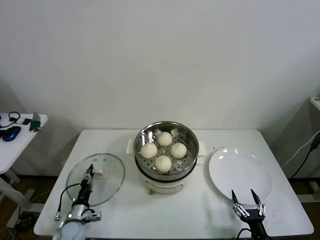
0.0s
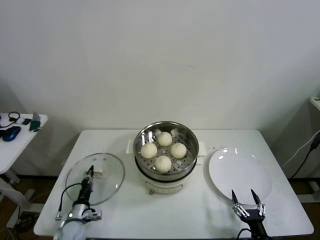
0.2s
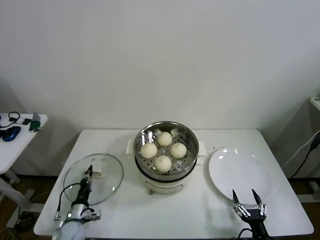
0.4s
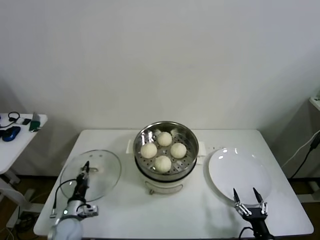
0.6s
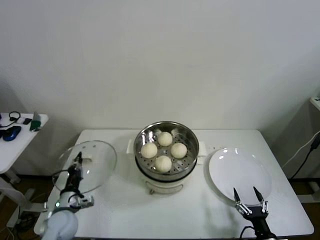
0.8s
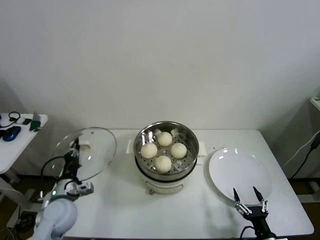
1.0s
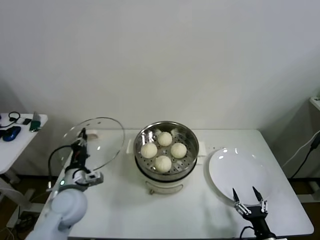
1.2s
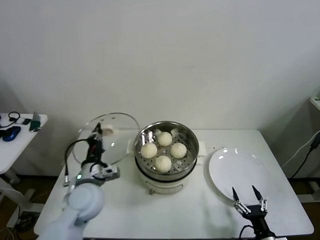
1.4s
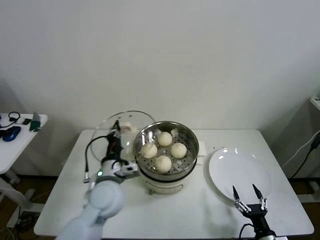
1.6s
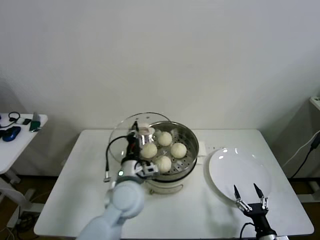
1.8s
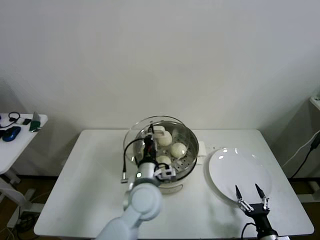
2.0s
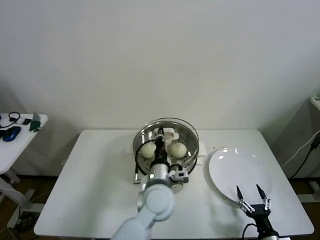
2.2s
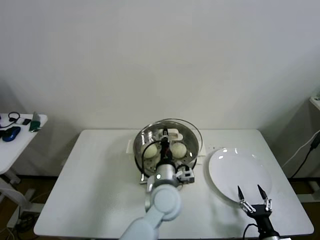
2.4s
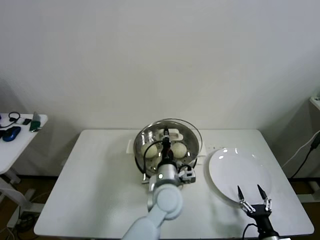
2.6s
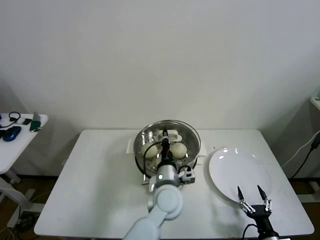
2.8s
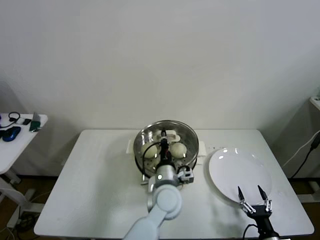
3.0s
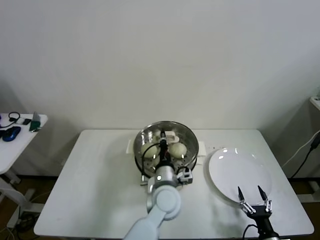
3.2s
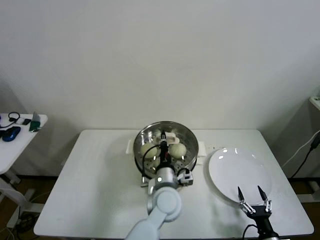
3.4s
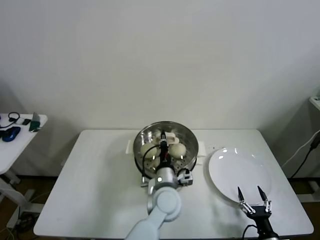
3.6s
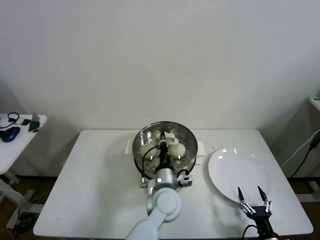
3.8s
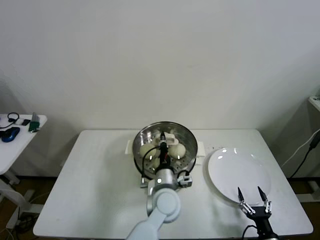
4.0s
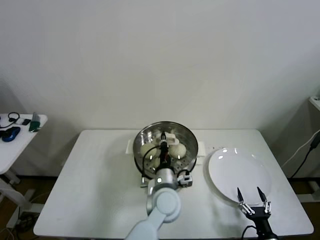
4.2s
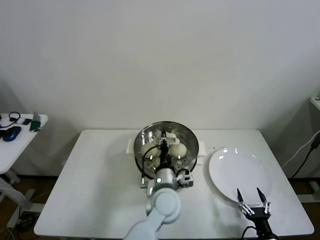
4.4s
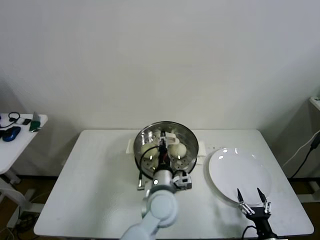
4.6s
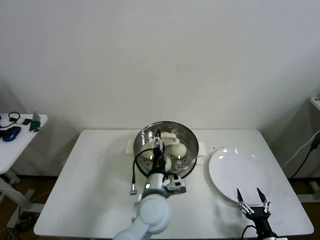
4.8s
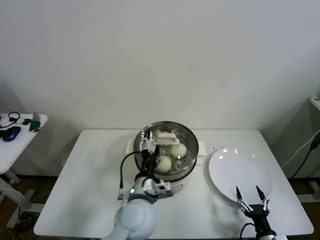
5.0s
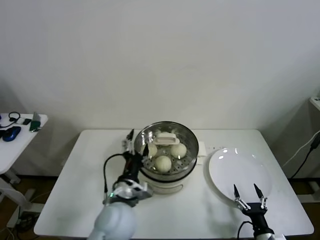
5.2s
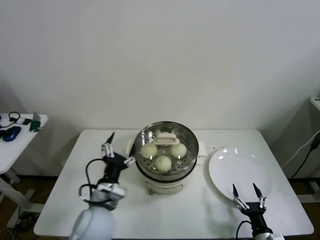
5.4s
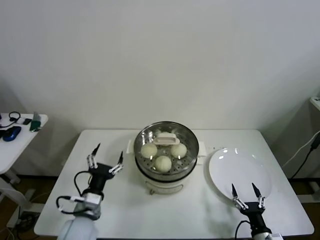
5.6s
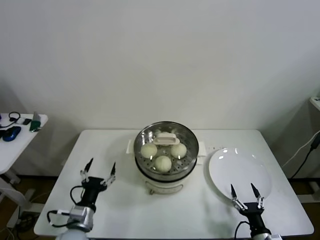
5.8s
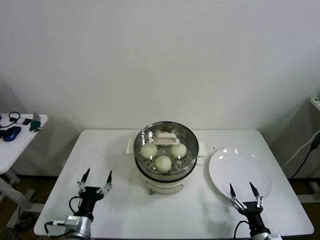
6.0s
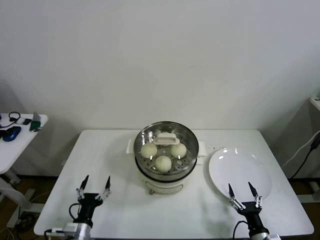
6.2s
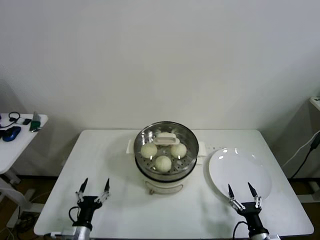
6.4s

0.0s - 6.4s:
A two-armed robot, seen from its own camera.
Step, 0.4s - 4.4s: Place the pot lid on the steamer with left gripper.
0.0s - 1.6s: The left gripper travels upward and to the right by about 30 cm.
1.6s - 3.2s: The left gripper travels to the right by roughly 20 cm.
3.2s - 4.8s: The left gripper opens its fingers.
4.8s - 6.4s: The left gripper is displaced to the left, downward and backward by about 35 cm.

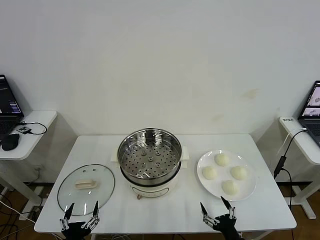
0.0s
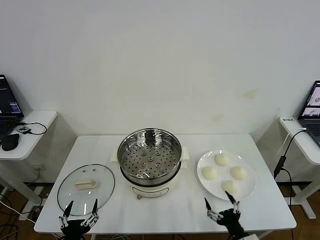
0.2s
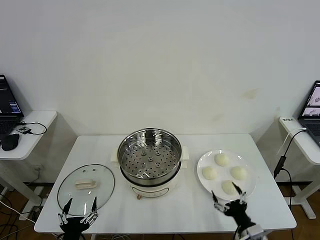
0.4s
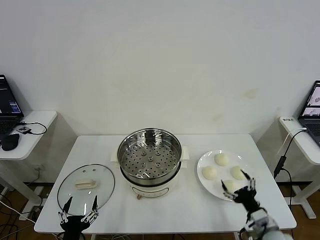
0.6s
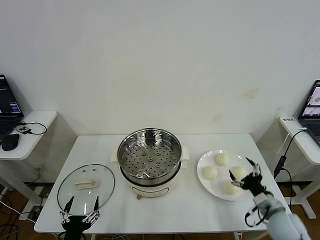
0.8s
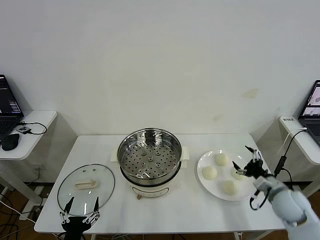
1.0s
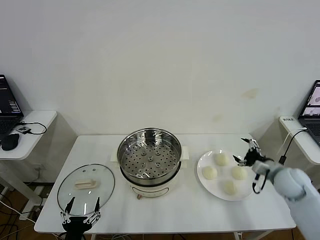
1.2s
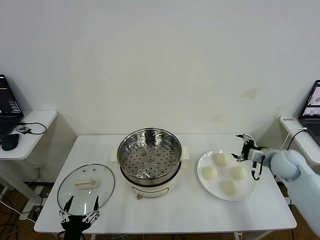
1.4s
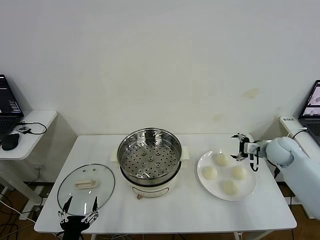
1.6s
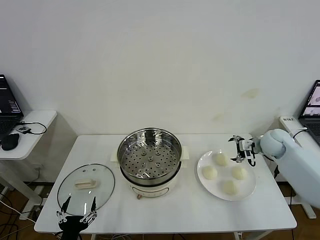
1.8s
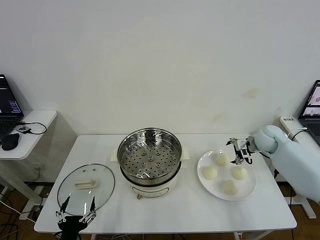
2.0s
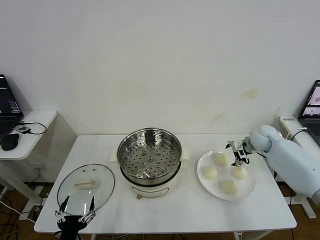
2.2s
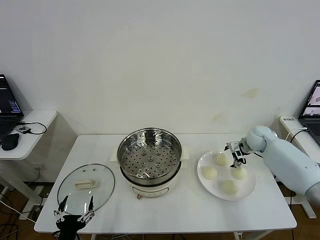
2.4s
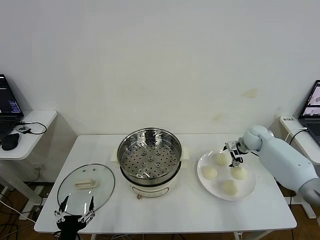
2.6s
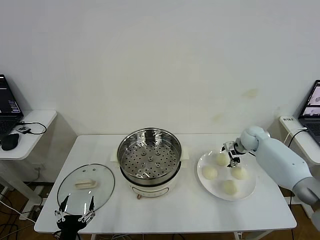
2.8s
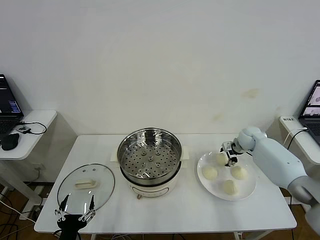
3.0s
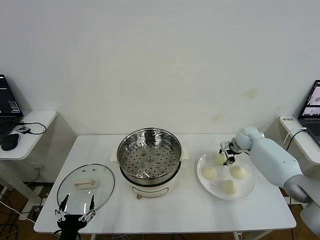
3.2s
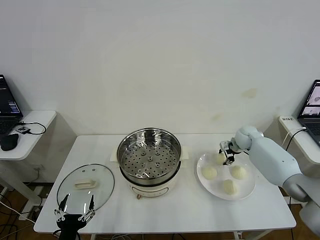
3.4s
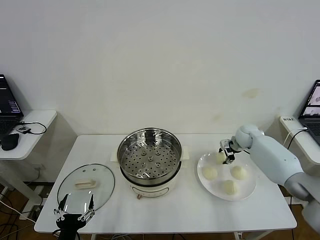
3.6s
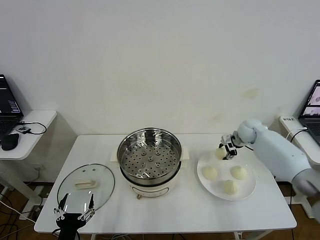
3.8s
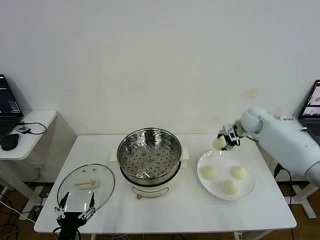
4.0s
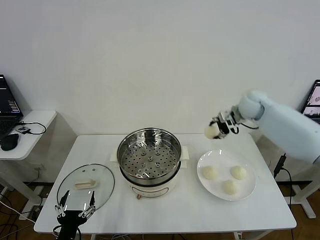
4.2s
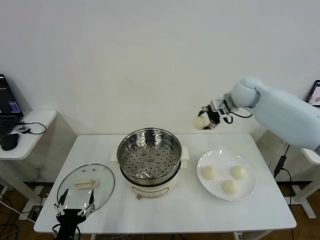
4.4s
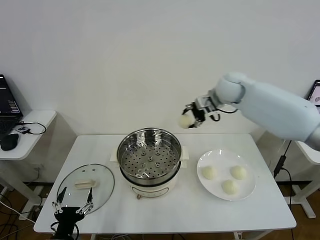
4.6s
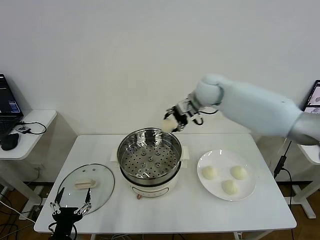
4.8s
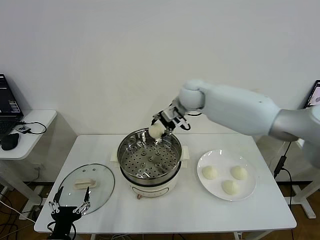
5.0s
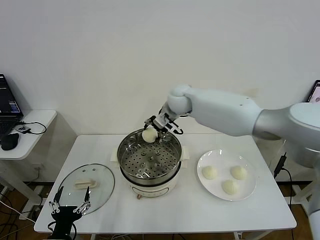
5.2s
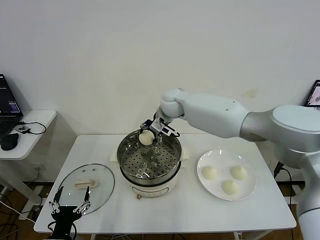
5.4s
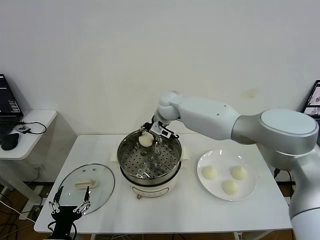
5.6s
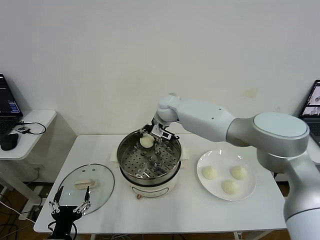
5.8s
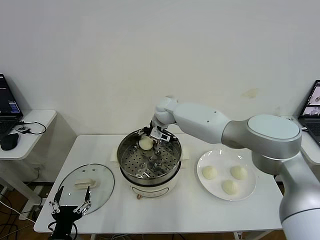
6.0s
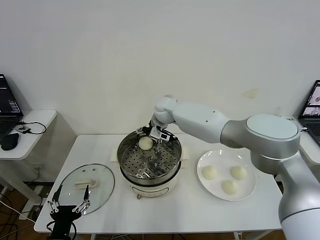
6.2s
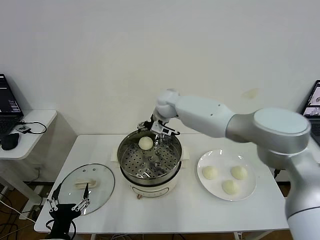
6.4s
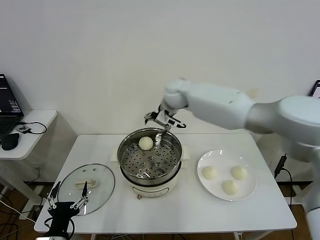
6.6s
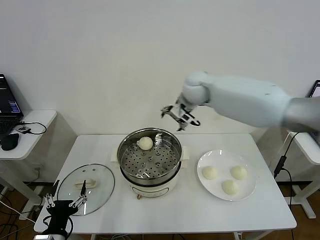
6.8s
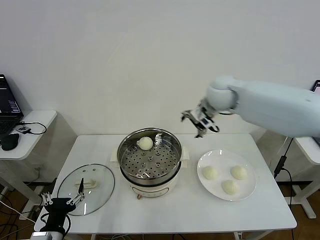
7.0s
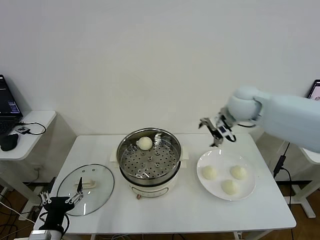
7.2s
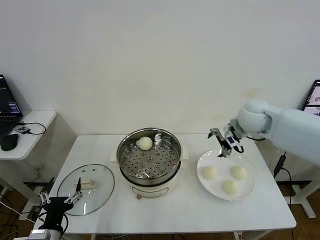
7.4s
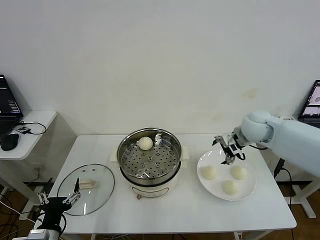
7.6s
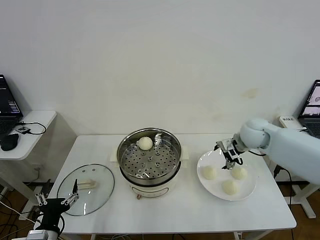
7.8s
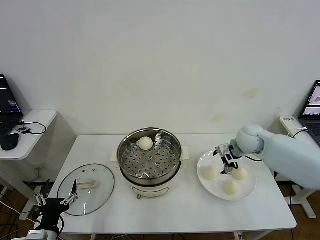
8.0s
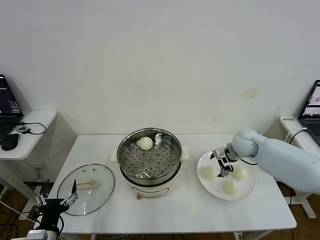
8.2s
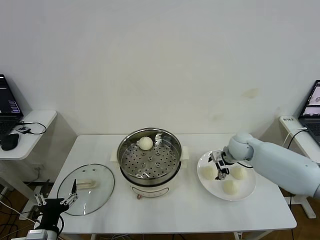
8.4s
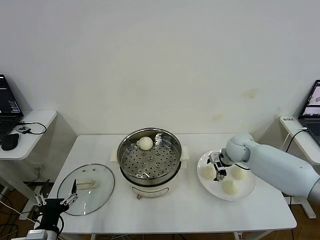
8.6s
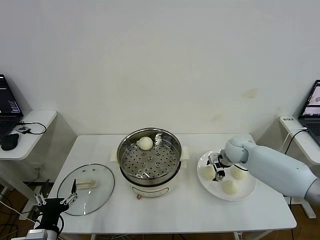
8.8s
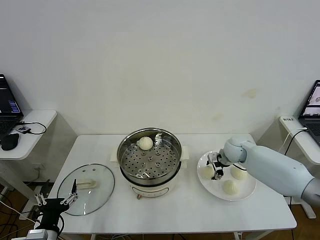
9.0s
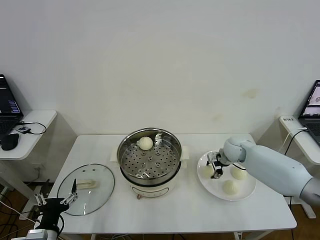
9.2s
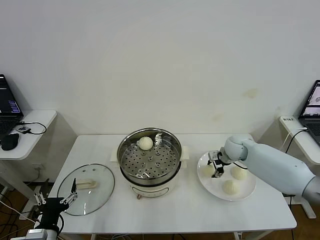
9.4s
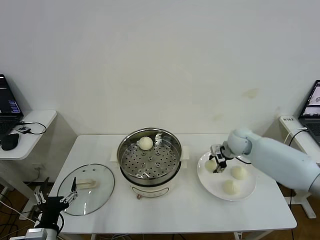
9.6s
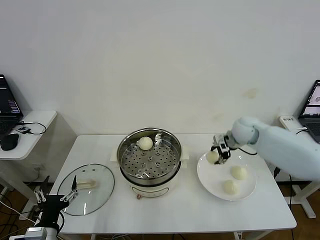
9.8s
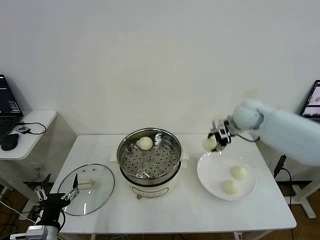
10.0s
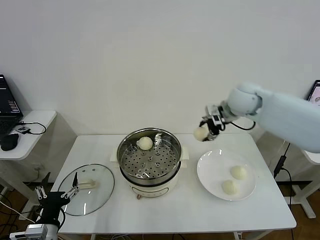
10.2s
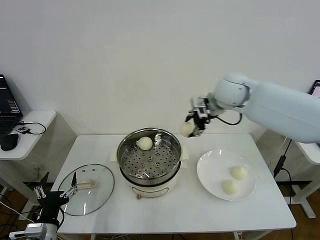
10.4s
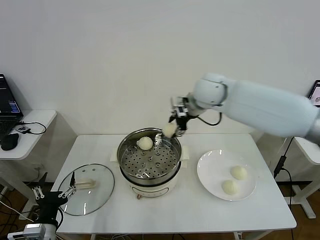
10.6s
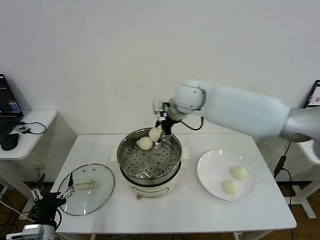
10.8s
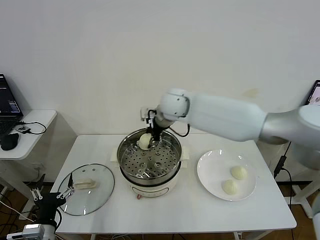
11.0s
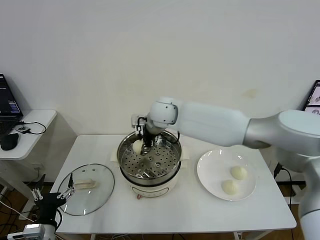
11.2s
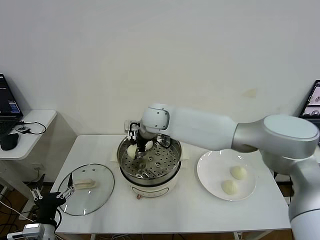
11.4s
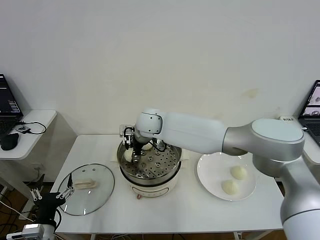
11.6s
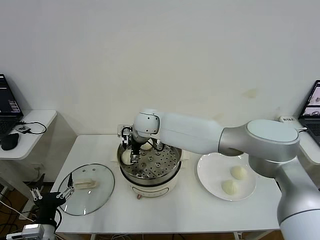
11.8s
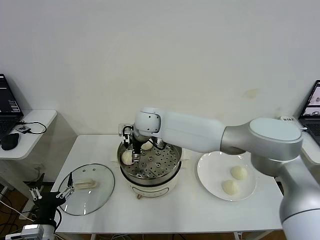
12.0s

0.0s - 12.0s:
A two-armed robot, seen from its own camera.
Step, 0.0s - 3.4s: Grasp the baozi in the plate with right gripper.
Step, 3.6s - 6.0s: Place the baozi on the steamer with right gripper.
Step, 6.4s - 9.2s: Grasp the baozi in the plate with right gripper.
Step, 9.4s - 11.8s: Place the baozi on the steamer with right gripper.
1.6s - 3.0s: The right gripper goes roughly 10 cm forward and downward, and closes its fingers.
3.0s - 4.4s: The right gripper moves upward and to the left, about 25 cm.
4.4s - 6.0s: The right gripper travels to the left and downward by some 25 cm, and opens.
6.0s - 7.6s: The right gripper goes some 30 cm to the right.
7.6s - 9.0s: The right gripper heads downward, covering approximately 10 cm, and closes.
9.0s - 10.4s: The right gripper heads upward and to the left, covering some 30 cm.
10.4s - 12.0s: The right gripper is displaced to the left and downward by roughly 20 cm, and opens.

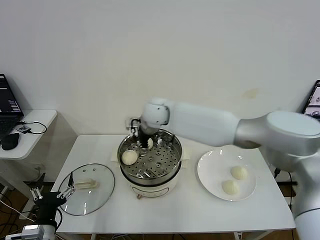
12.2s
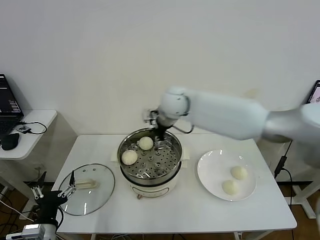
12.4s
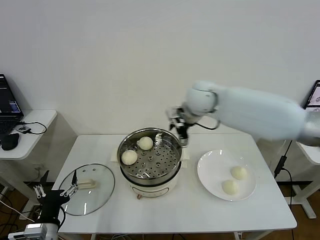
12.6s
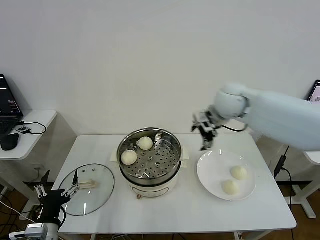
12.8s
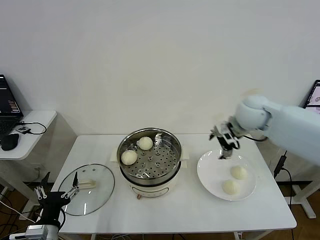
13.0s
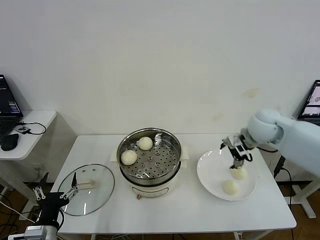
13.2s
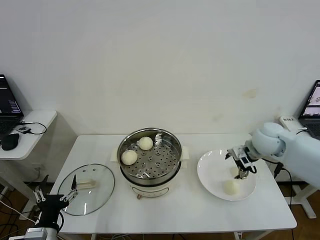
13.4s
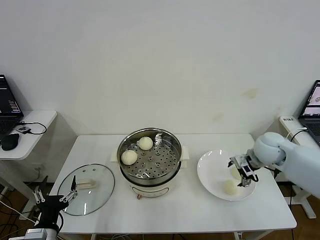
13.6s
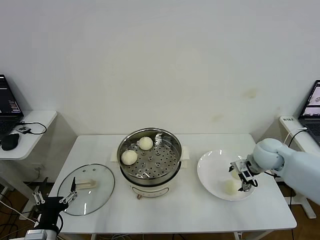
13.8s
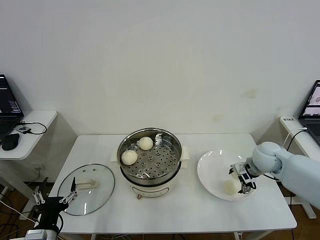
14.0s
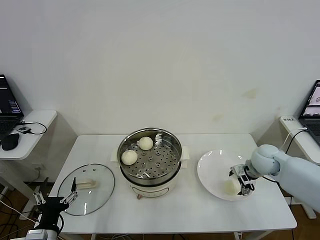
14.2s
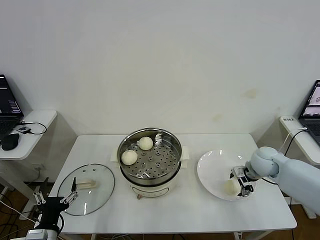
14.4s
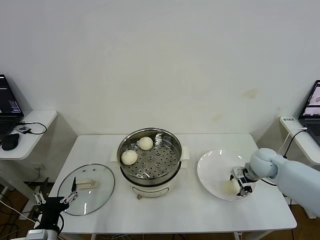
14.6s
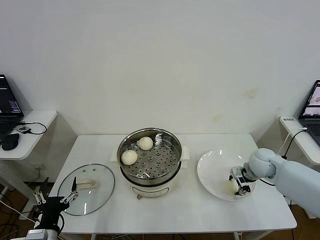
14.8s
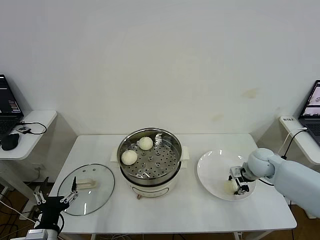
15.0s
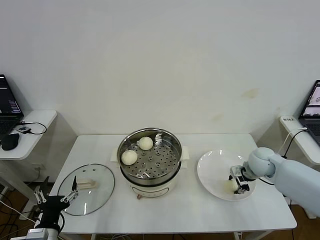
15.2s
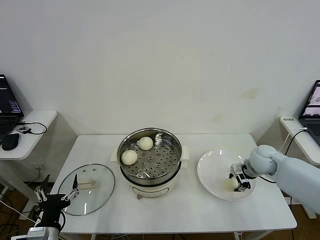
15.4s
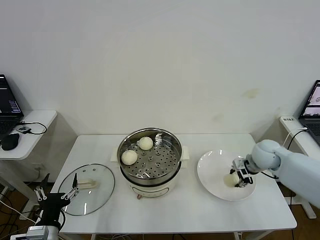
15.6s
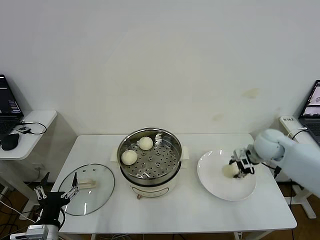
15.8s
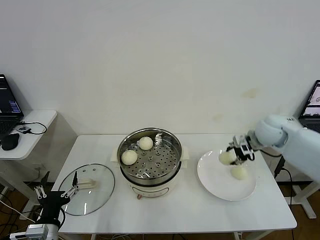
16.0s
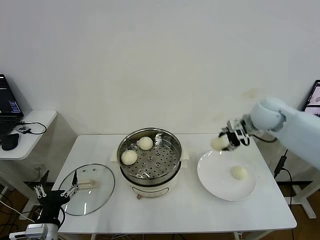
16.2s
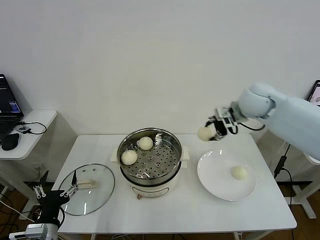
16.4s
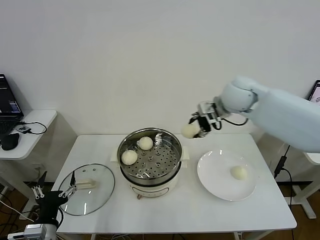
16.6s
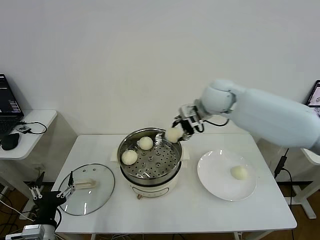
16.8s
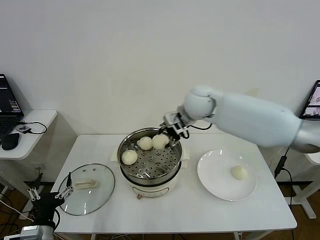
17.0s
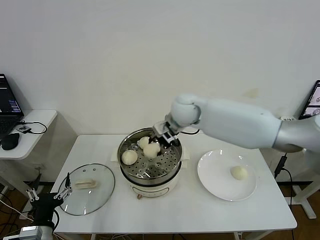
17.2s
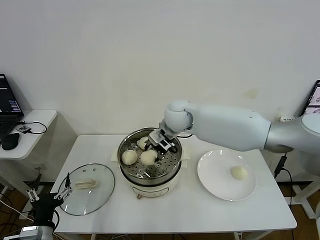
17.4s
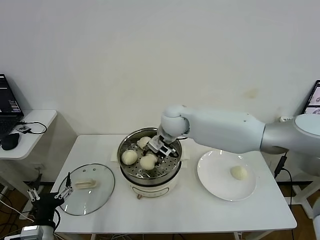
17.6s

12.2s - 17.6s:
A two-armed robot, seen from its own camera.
Step, 12.2s - 15.2s: Grasp the baozi in the plate with right gripper.
12.2s - 13.6s: The right gripper is displaced to the right by roughly 35 cm.
13.6s - 15.0s: The right gripper heads downward, covering some 5 cm, and closes its fingers.
15.0s - 16.2s: The right gripper heads upward, covering approximately 20 cm.
16.2s - 17.6s: The right gripper moves to the left, some 25 cm.
